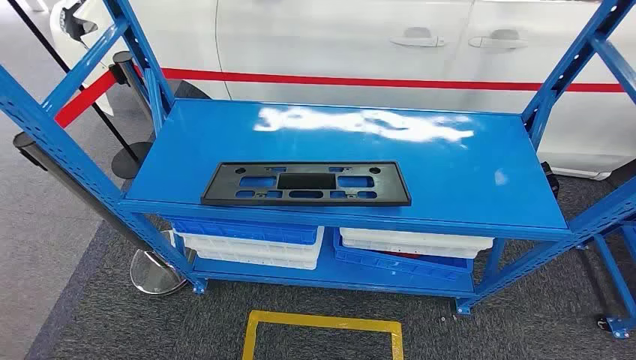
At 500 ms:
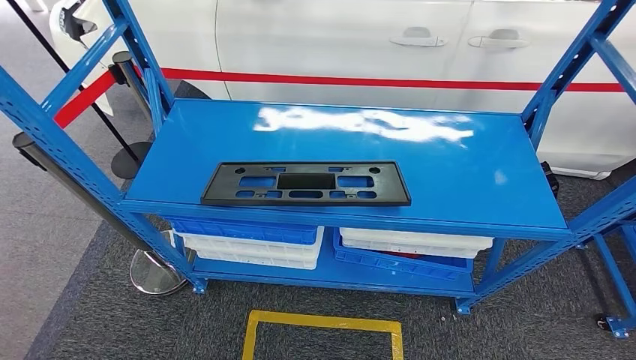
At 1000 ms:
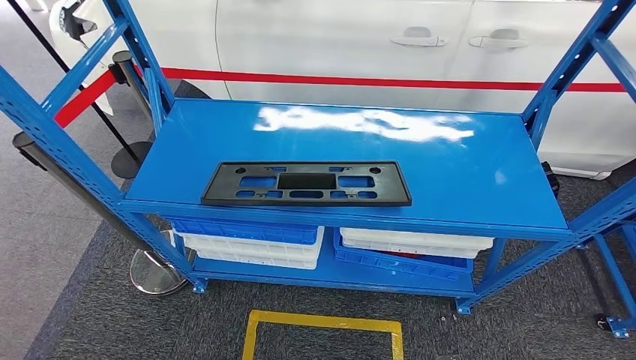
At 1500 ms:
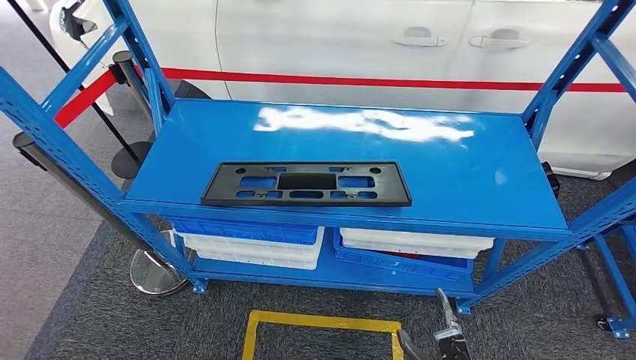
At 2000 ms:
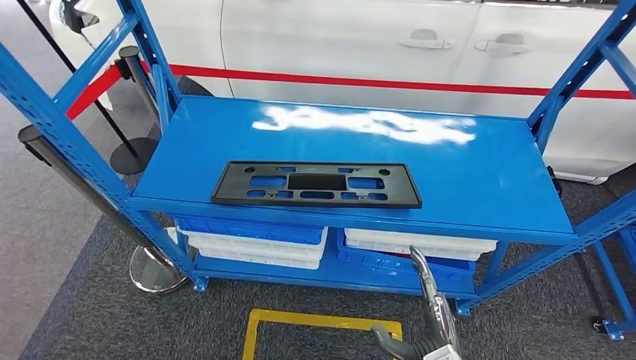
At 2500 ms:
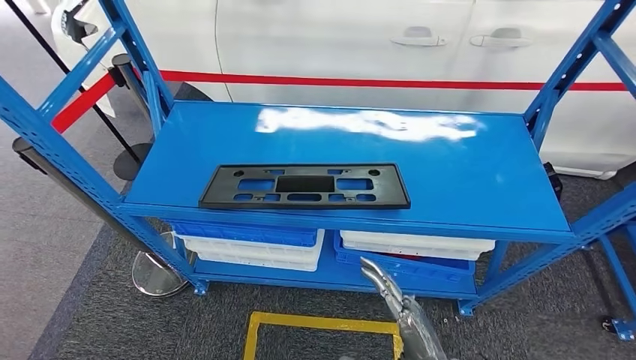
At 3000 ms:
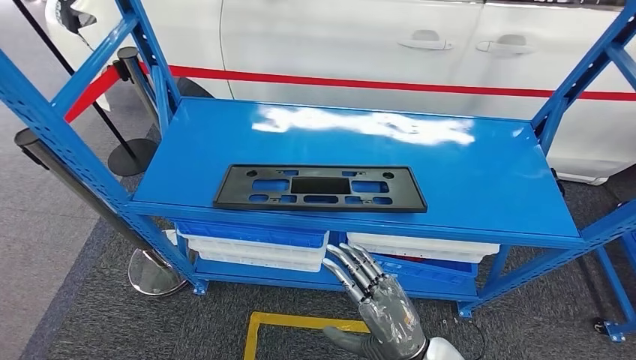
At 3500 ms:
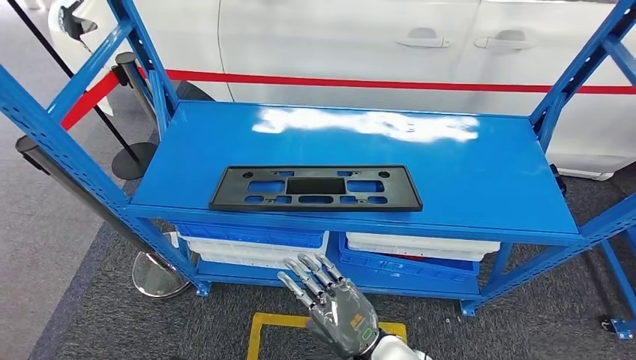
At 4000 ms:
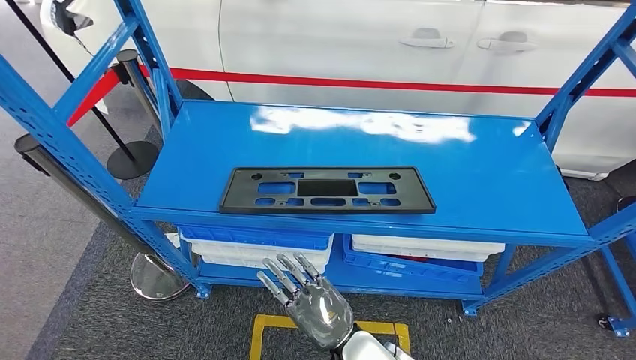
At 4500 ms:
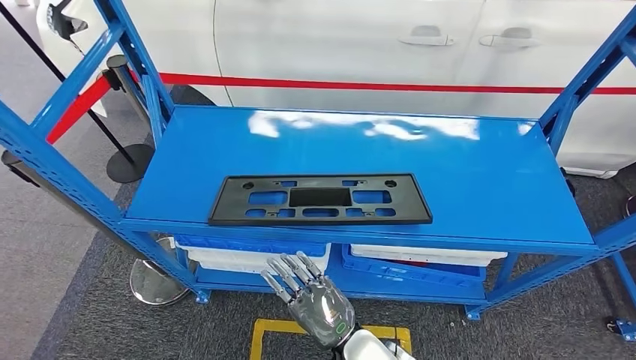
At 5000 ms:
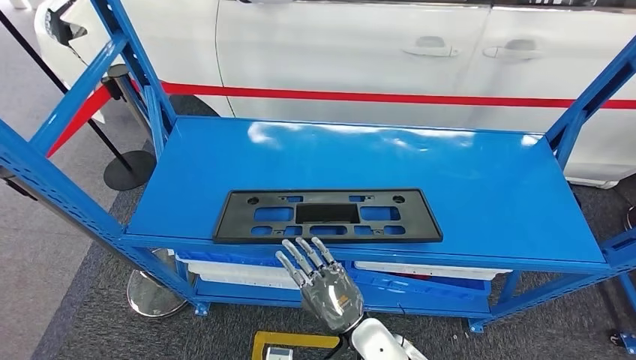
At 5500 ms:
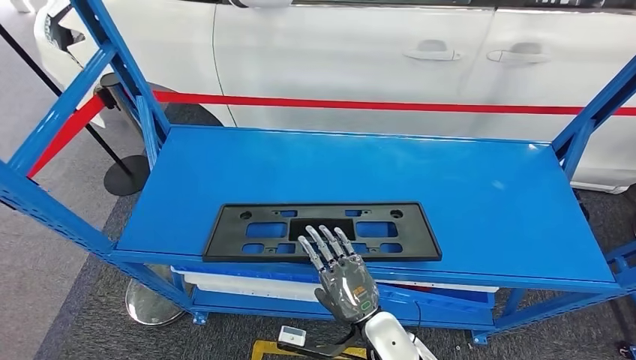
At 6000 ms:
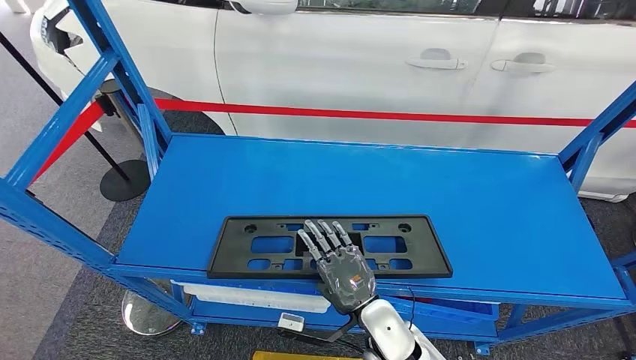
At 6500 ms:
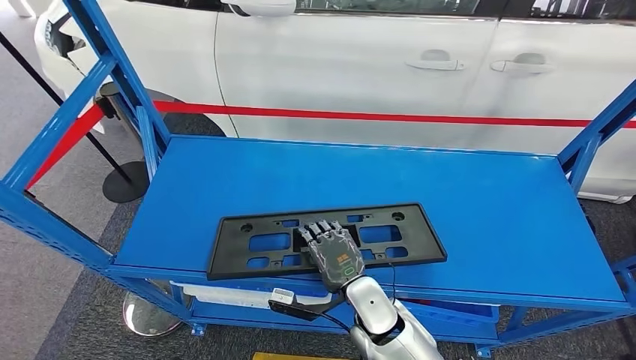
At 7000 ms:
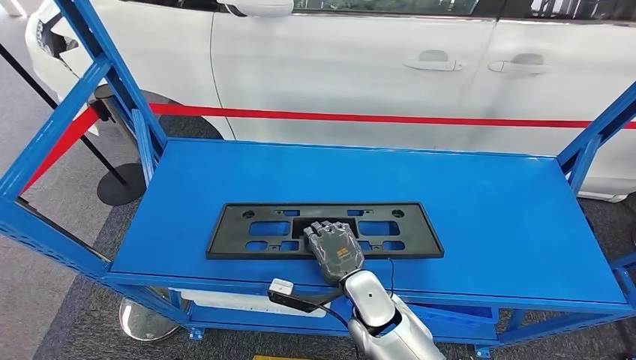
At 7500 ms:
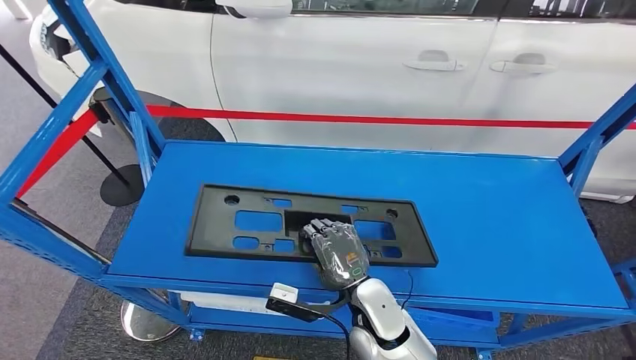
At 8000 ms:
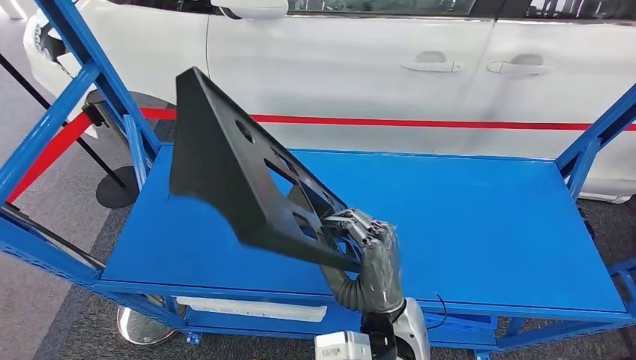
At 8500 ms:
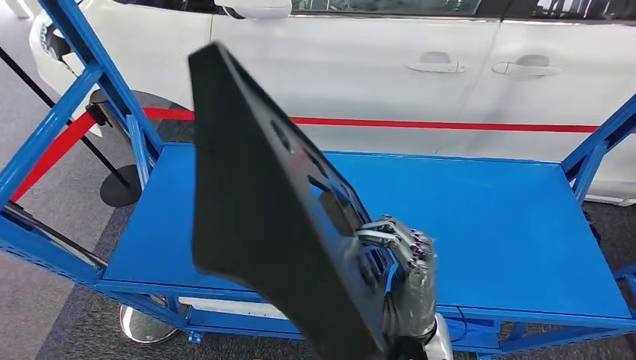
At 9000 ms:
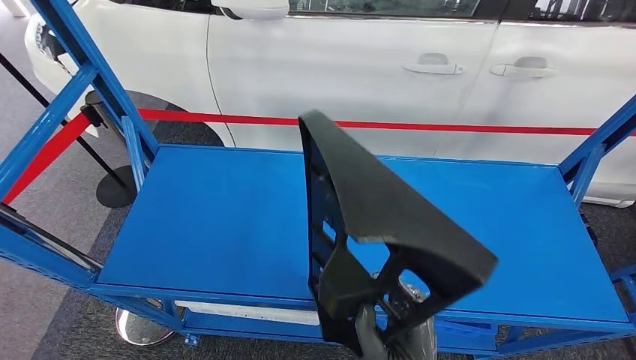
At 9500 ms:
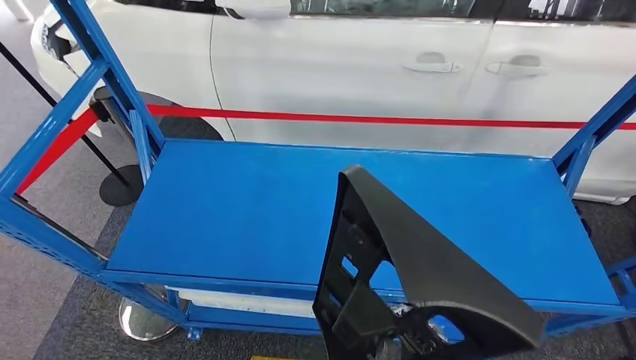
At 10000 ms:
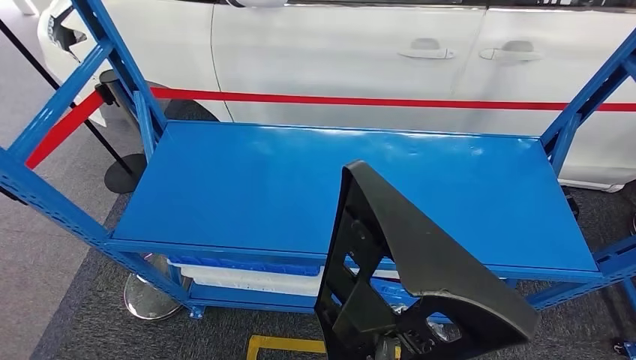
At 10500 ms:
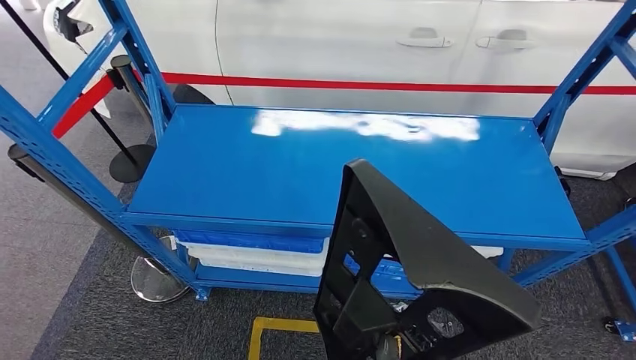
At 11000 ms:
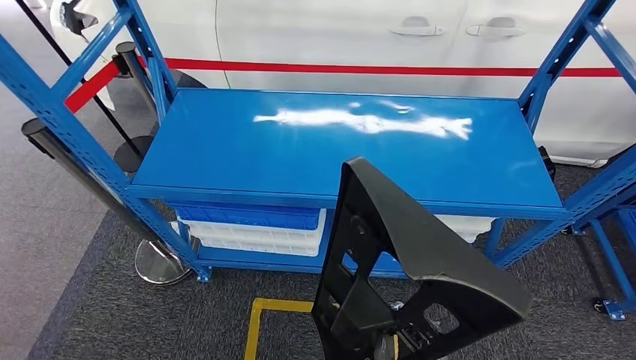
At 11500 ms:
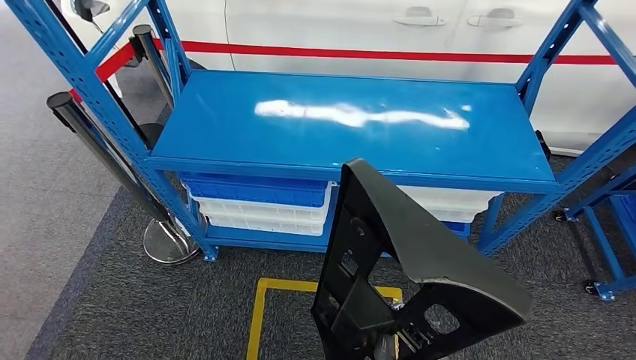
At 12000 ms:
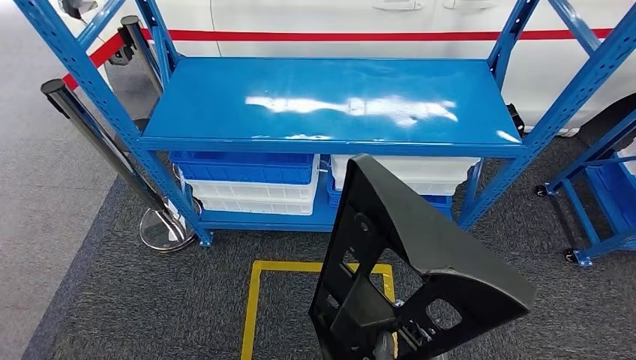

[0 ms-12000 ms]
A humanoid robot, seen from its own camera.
Step, 0 ms to 9000 ms: Pick up the large material from the shelf.

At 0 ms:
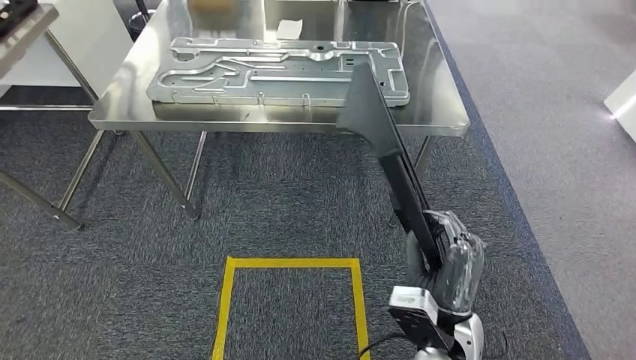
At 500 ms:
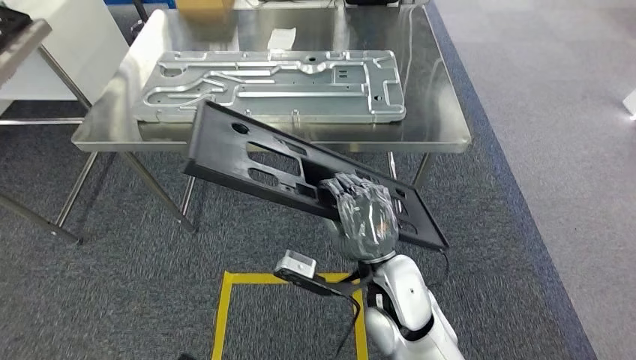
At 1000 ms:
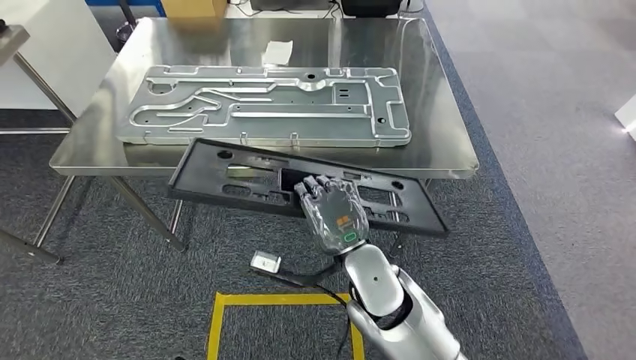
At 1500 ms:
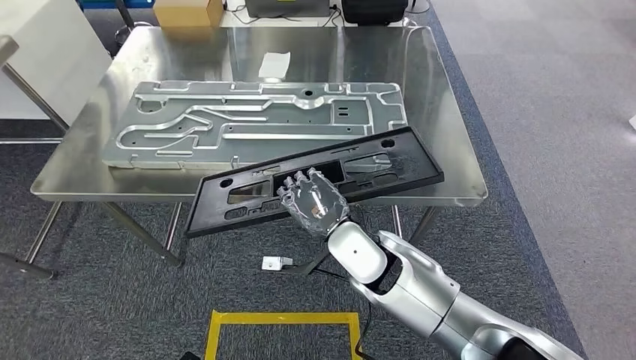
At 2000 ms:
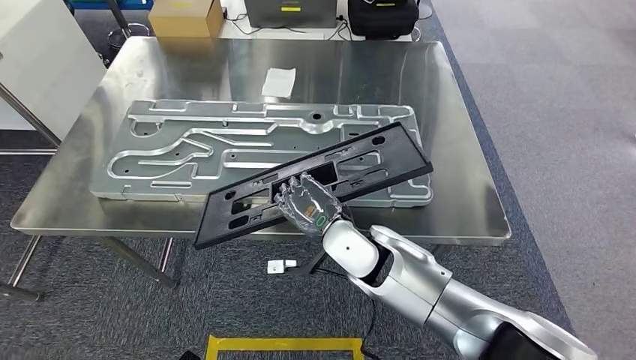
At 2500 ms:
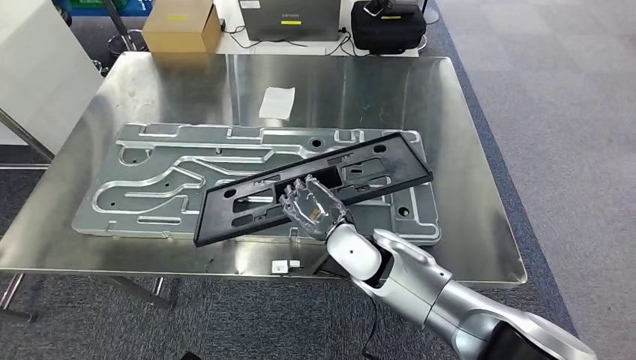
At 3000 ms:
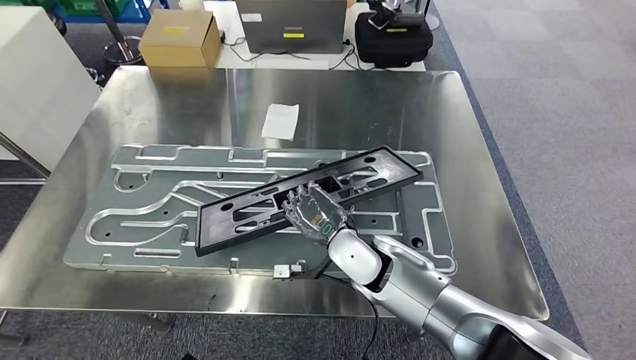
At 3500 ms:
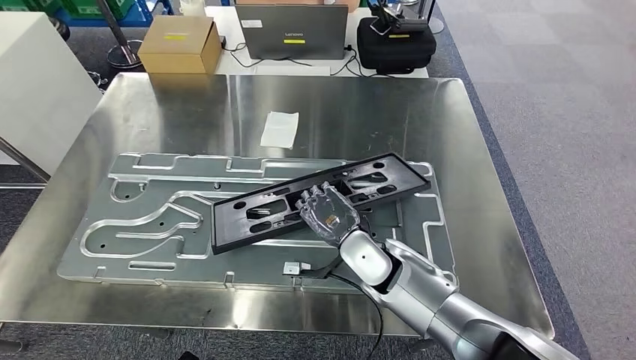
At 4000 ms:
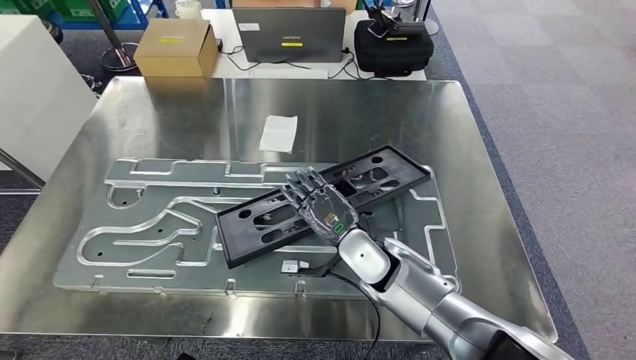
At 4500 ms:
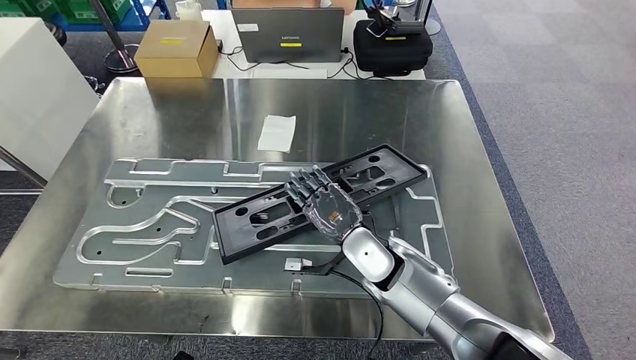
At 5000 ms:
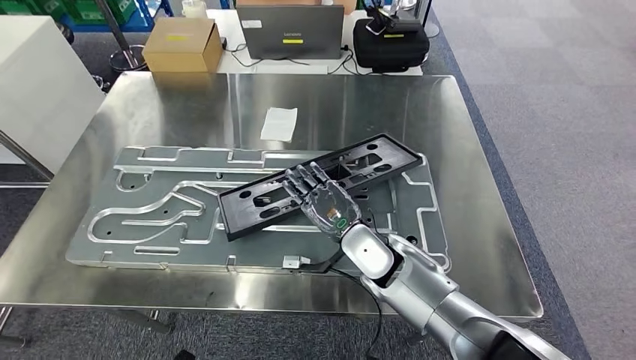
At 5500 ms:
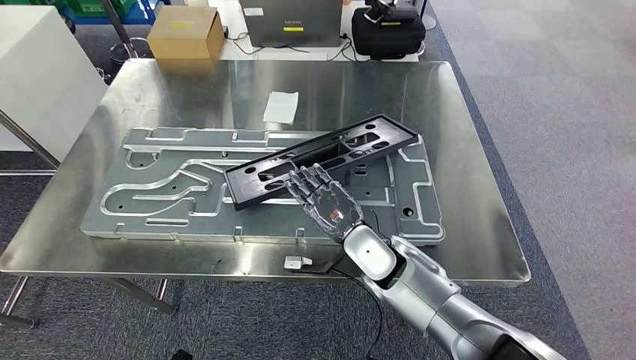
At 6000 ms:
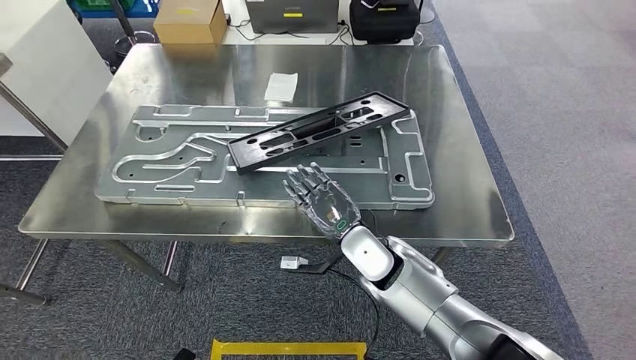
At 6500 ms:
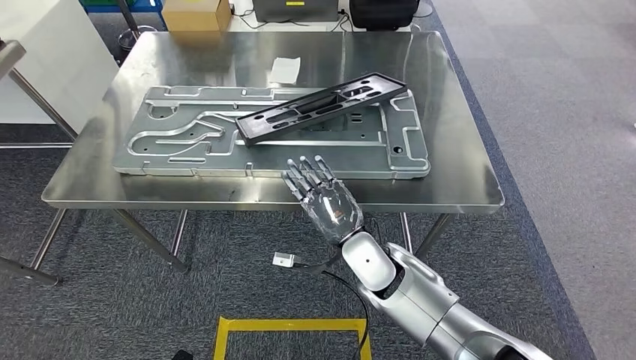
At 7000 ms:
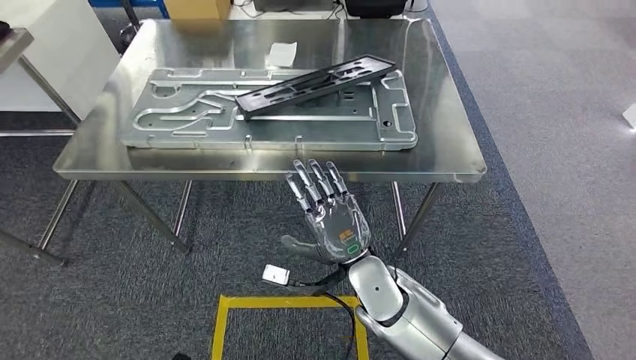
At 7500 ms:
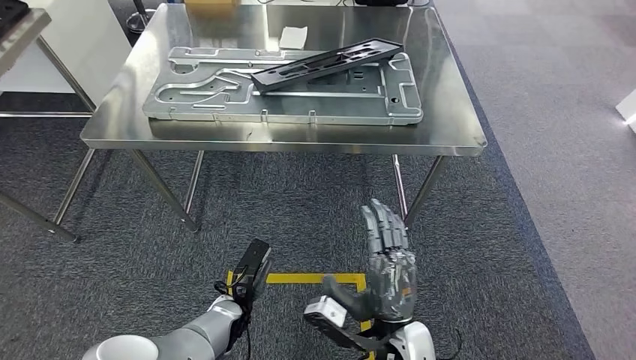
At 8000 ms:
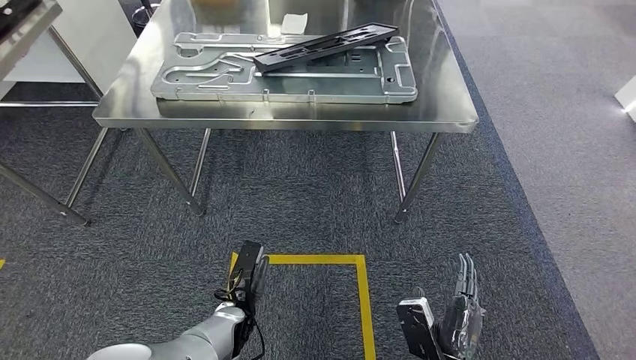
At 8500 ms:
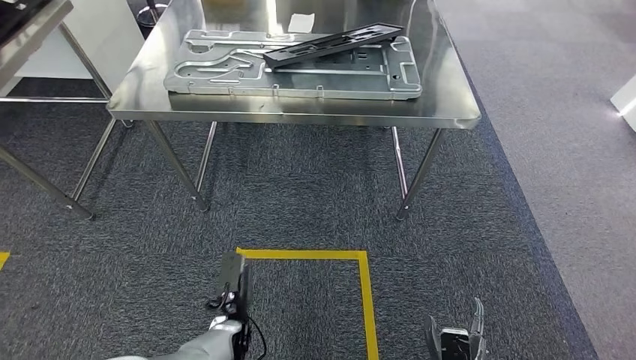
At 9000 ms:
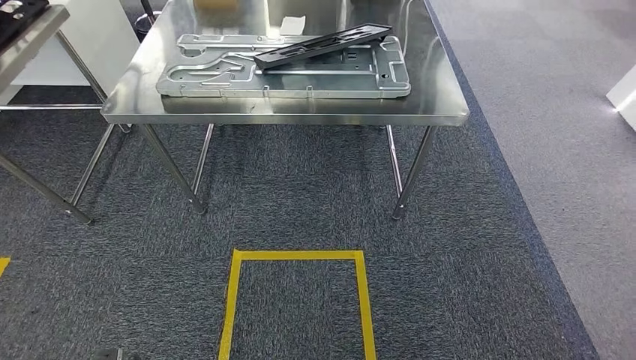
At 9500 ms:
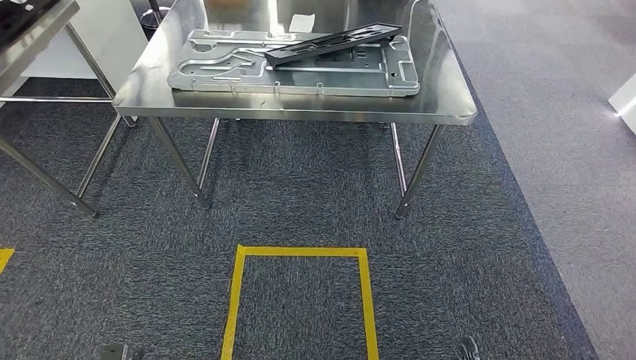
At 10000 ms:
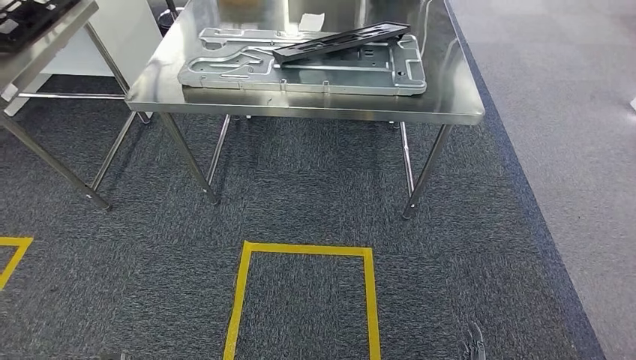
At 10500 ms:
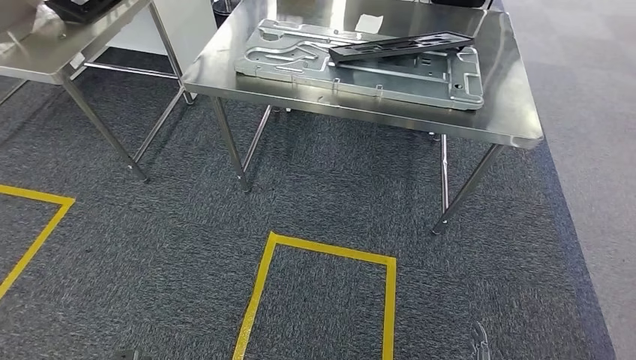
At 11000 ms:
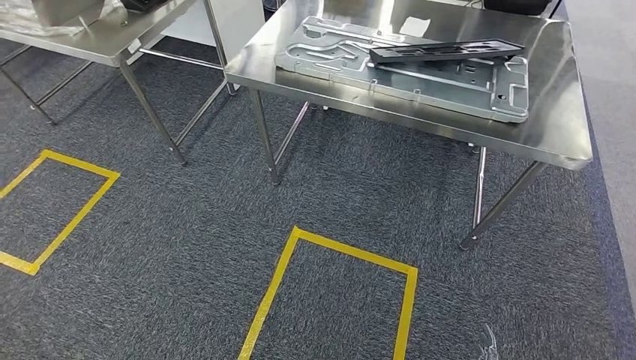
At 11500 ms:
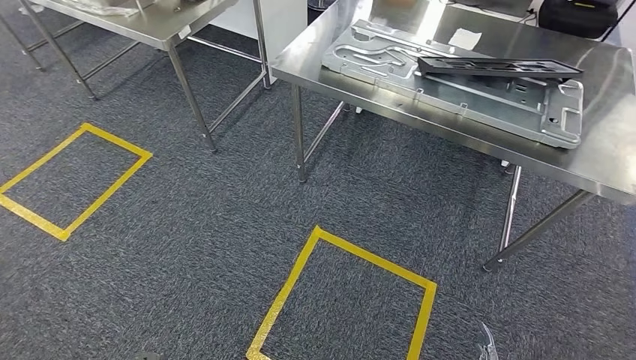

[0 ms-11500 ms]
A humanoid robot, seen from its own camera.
Step, 1500 ms to 8000 ms: Insert the large material into the corresponding slot on the workbench.
